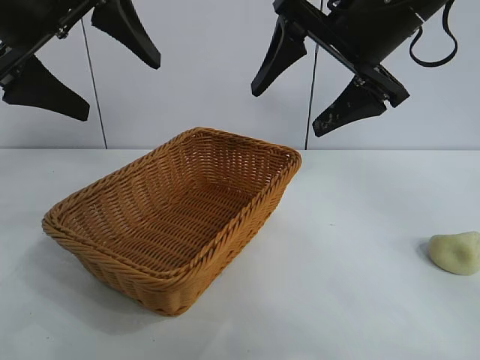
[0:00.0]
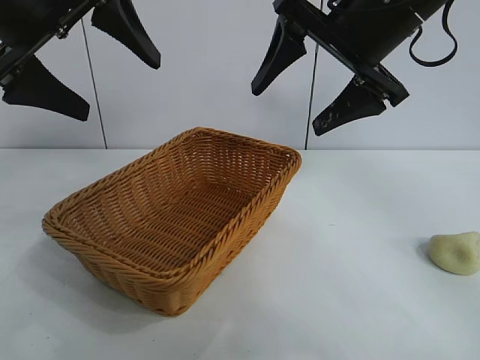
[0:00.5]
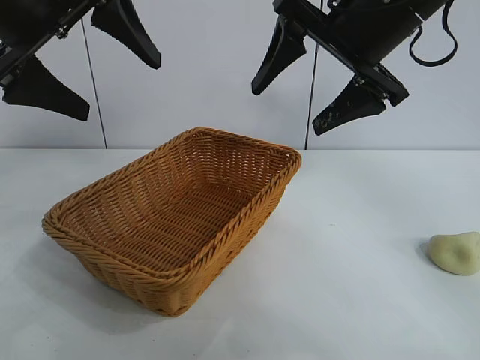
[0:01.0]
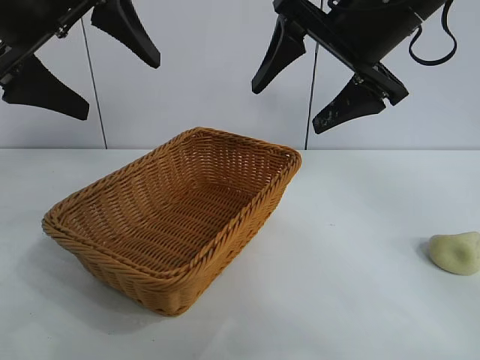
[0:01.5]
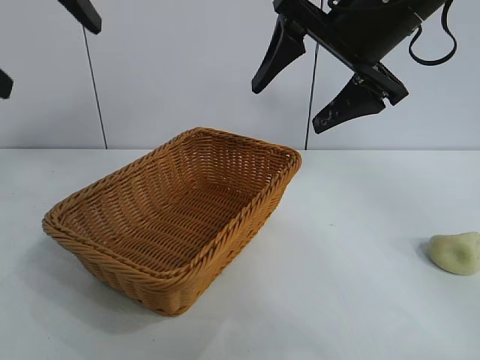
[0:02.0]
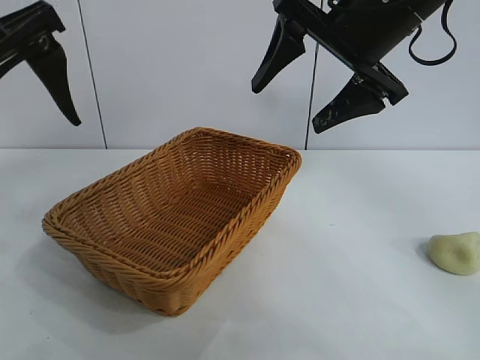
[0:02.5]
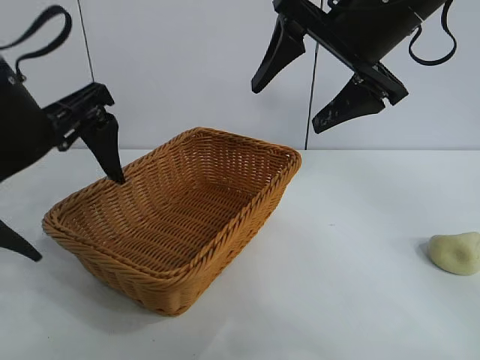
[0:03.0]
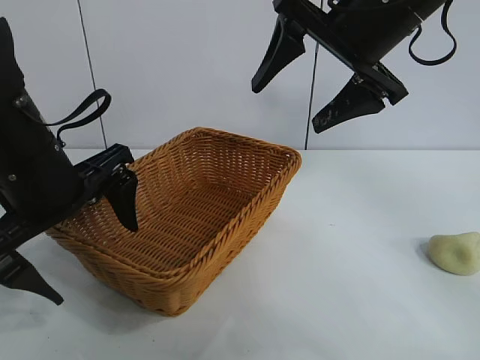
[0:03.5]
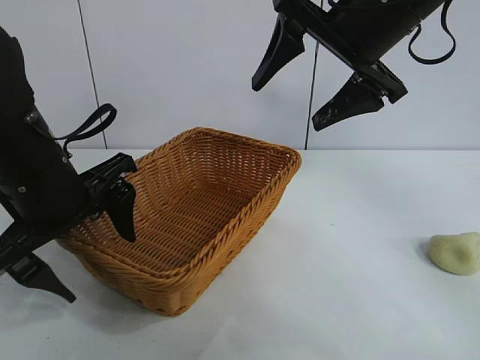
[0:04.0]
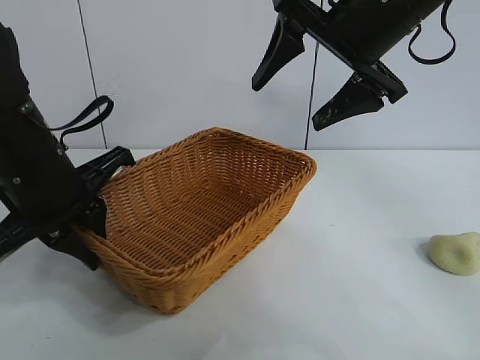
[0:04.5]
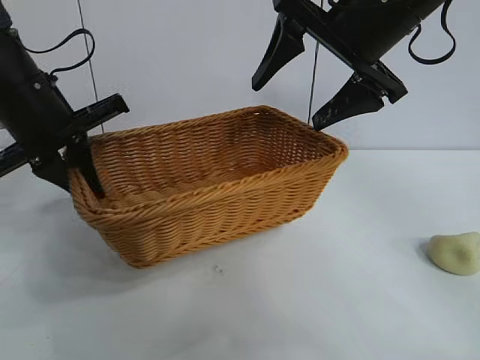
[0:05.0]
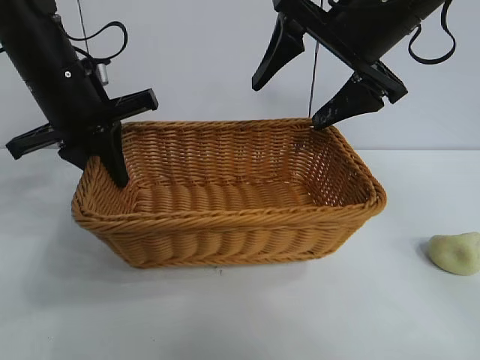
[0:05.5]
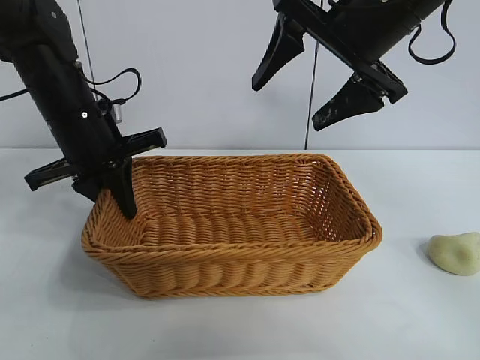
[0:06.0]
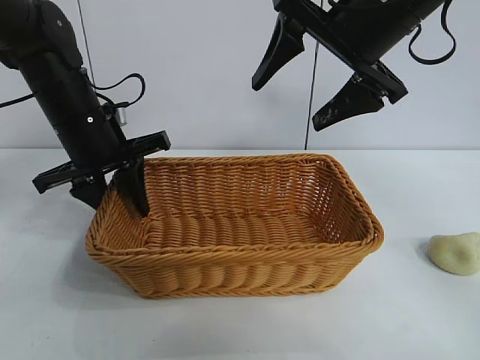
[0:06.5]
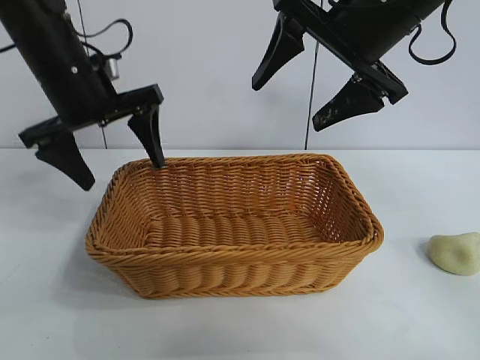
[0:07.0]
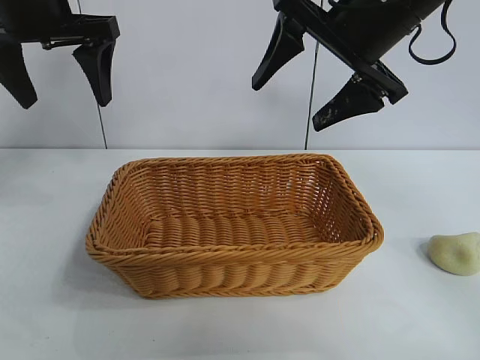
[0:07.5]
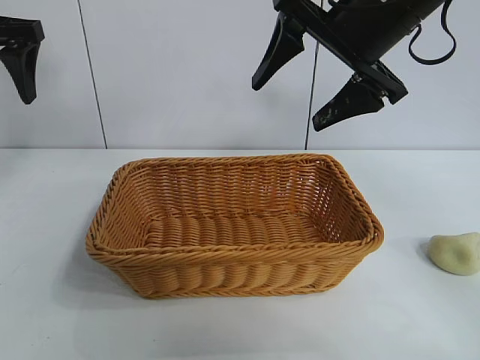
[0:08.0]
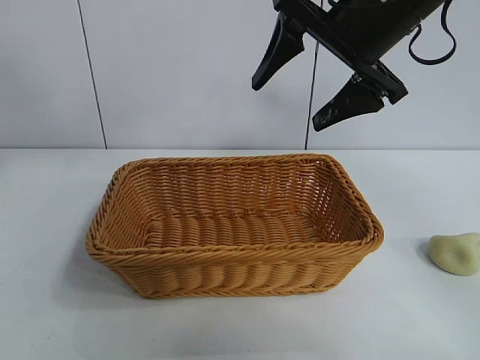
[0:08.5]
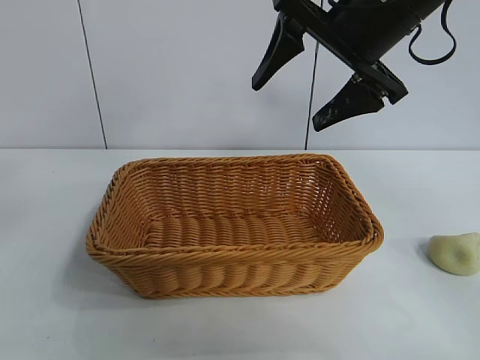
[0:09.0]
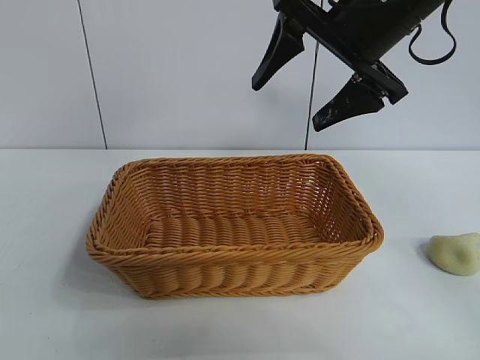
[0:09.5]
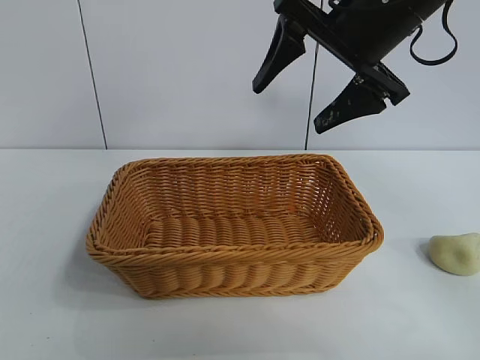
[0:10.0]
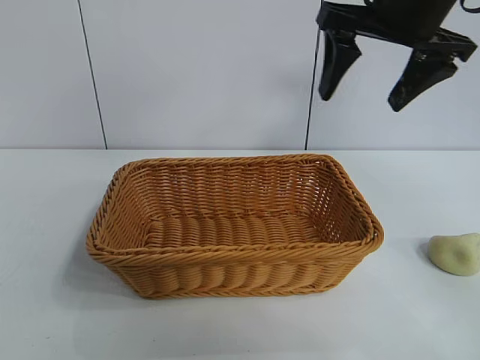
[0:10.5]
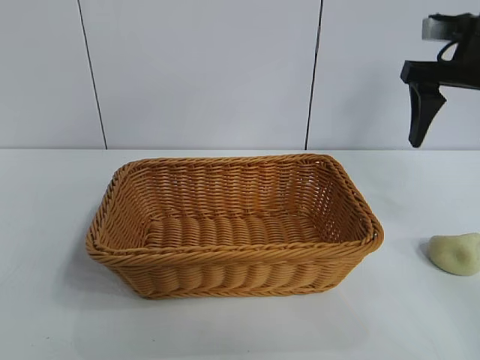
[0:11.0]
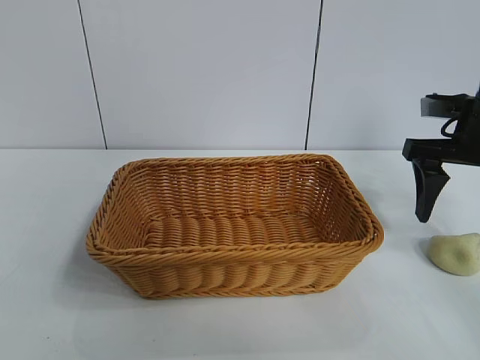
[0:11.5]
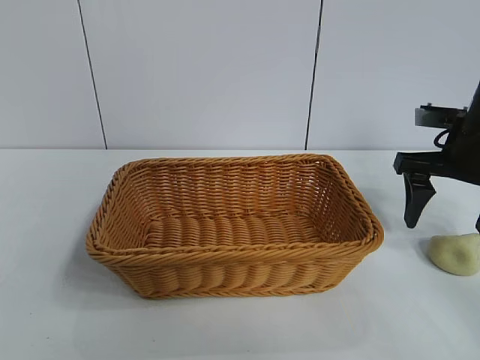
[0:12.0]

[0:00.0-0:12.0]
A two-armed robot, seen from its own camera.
Task of the whole recording: pick up the egg yolk pastry and put it into the basket.
Step, 0:02.0 to 0:04.0: Grasp the basket with left gripper.
Step, 0:04.5 to 0:06.5: Place the basket in the center of view with left gripper.

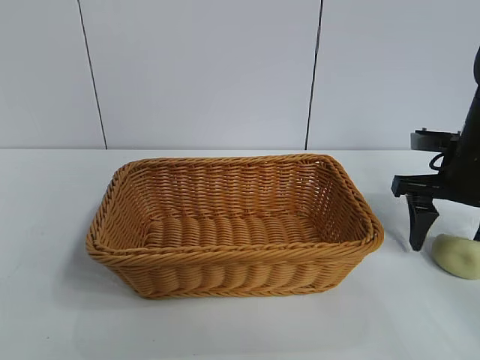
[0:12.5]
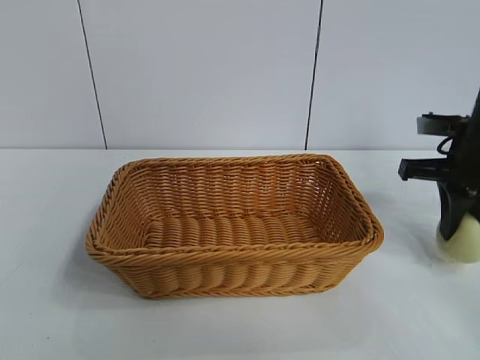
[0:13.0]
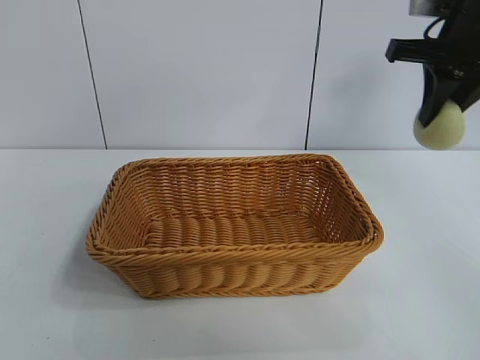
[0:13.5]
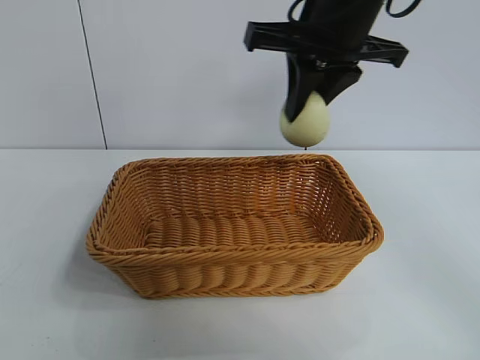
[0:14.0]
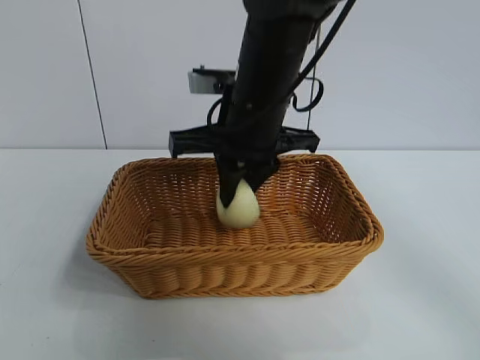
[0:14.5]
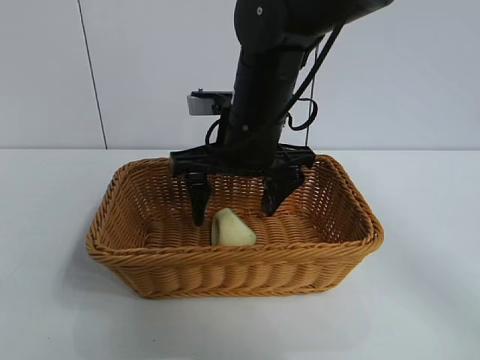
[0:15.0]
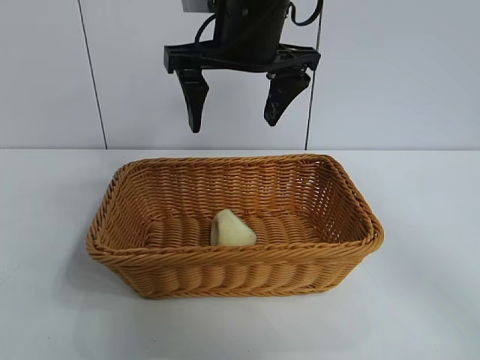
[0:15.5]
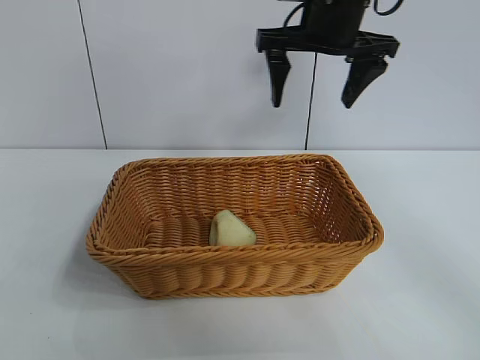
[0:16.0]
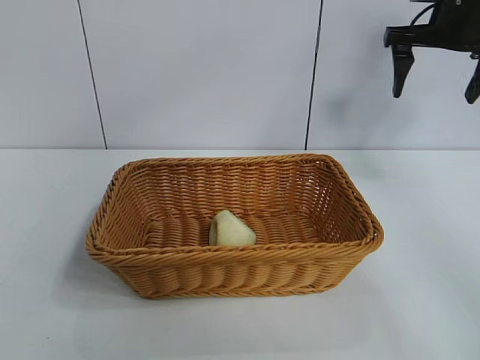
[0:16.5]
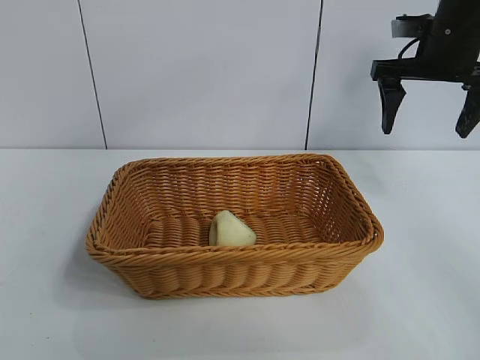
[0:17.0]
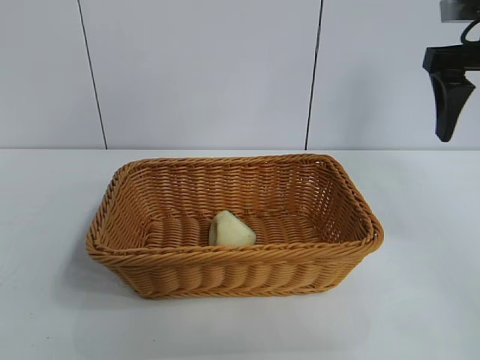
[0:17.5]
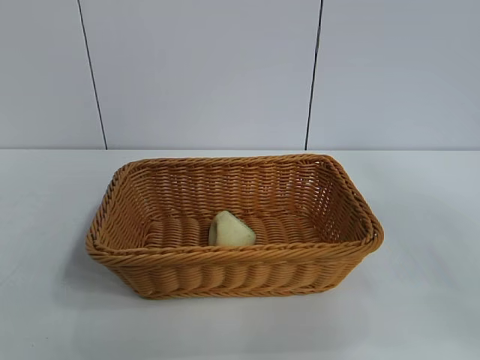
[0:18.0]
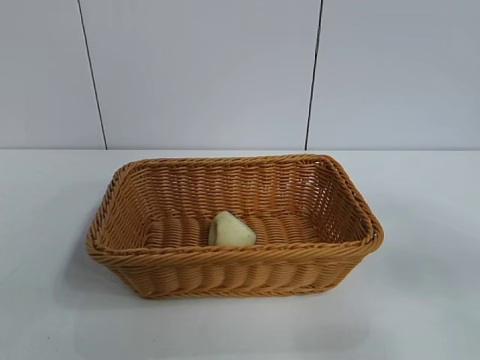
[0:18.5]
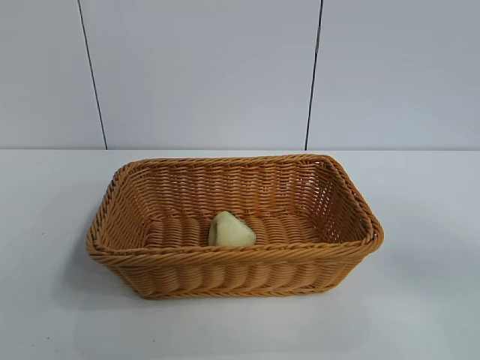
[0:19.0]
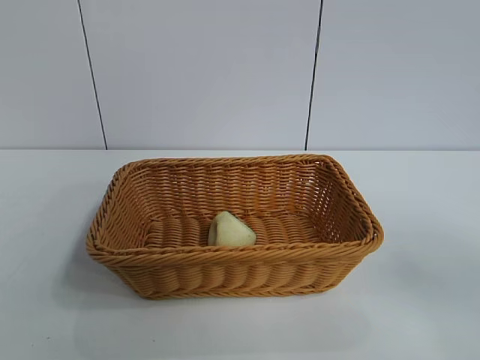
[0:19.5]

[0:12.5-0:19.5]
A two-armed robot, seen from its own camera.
Task of the whole recording: pick up the egg yolk pastry and put it into the basket.
Step, 0:13.0 to 0:15.0: Place the egg yolk pastry in the basket with right gripper.

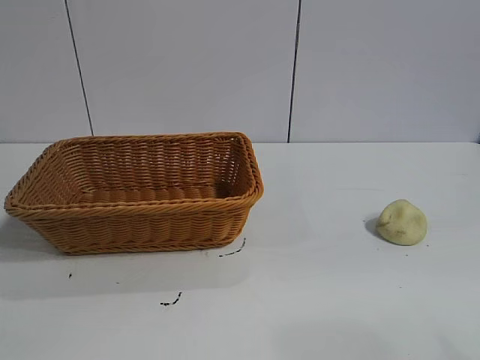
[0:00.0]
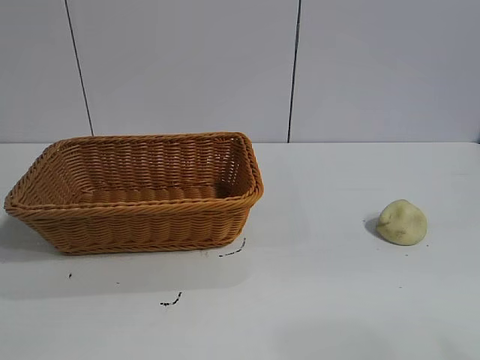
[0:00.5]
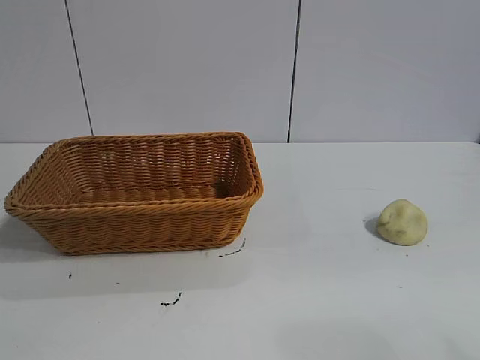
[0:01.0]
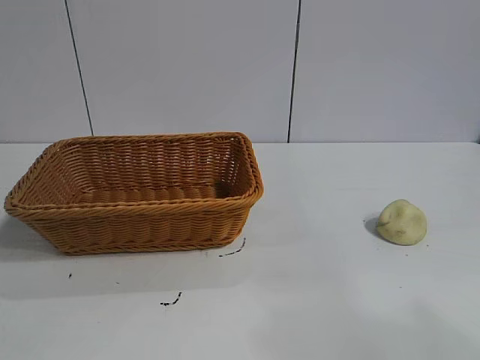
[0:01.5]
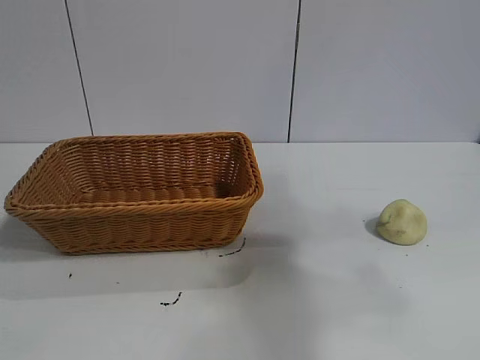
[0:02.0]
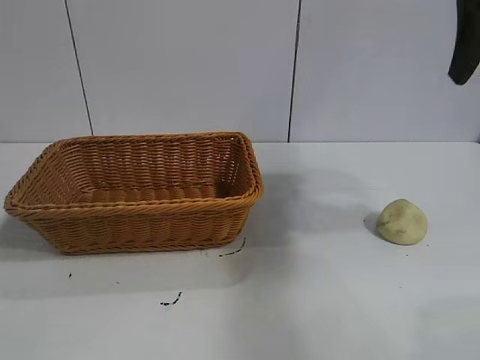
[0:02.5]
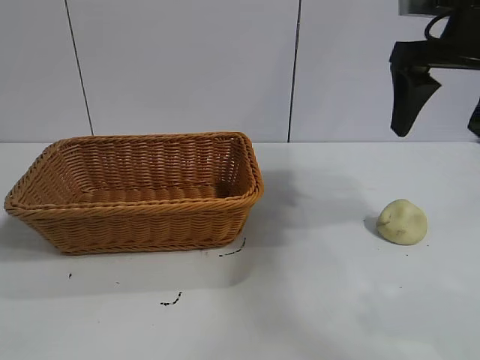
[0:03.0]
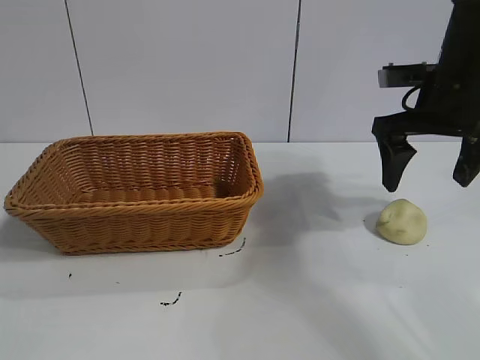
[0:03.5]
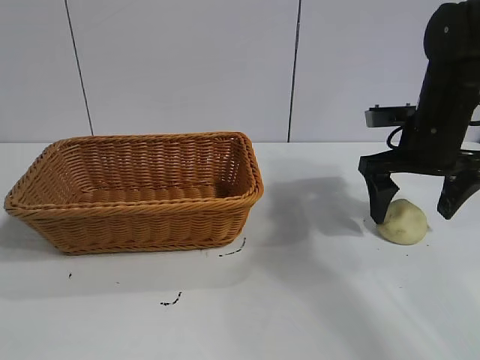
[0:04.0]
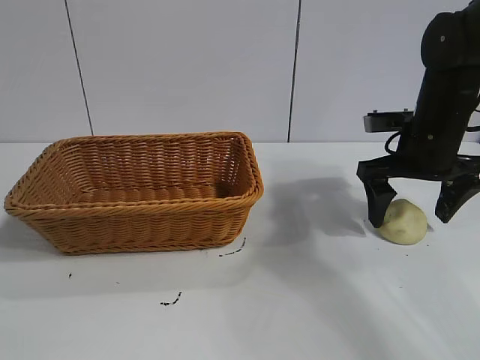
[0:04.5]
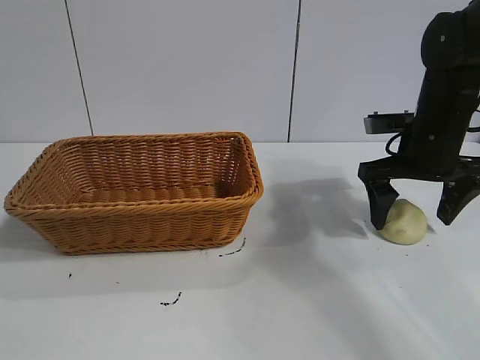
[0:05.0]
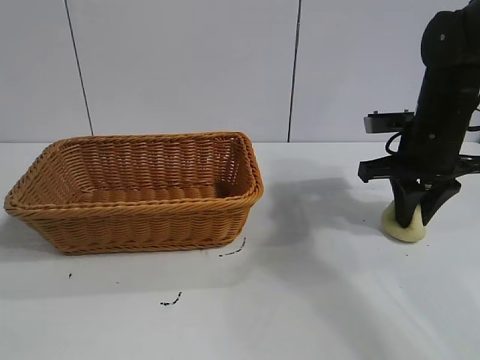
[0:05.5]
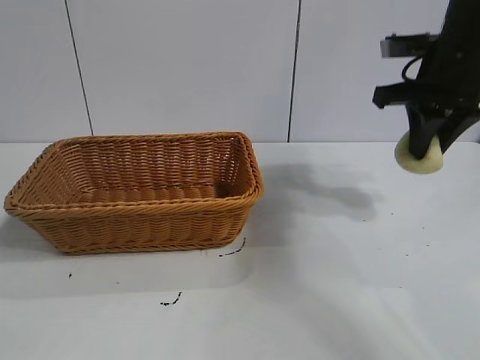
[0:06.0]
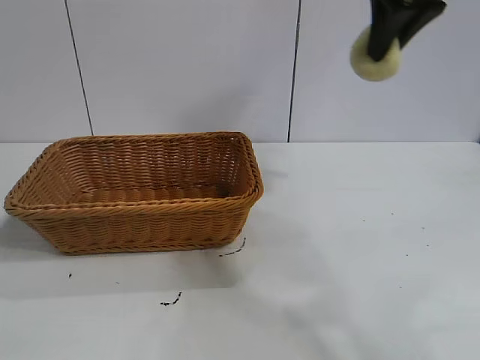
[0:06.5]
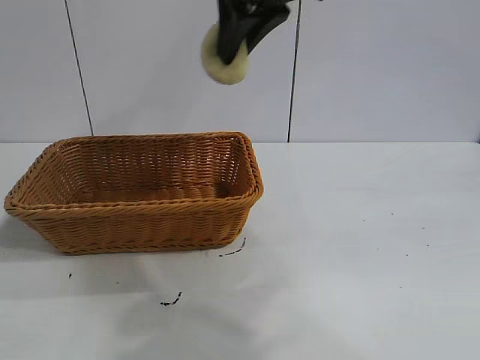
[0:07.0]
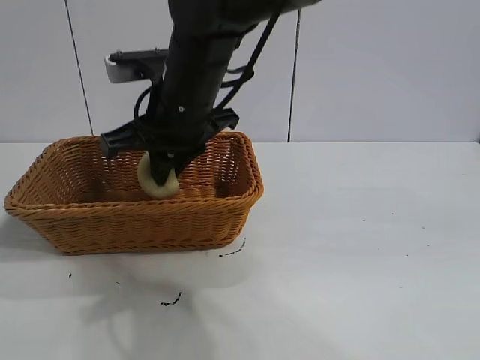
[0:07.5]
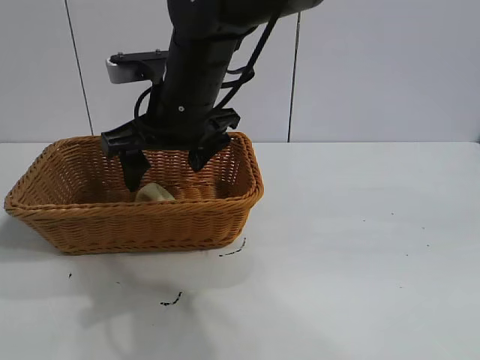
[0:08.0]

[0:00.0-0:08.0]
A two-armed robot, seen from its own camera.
Task of the whole recording: pick up the egg yolk pastry and put it into the basket.
Step, 0:01.0 to 0:05.5: Grasp egg yolk pastry with right gripper.
Step, 0:06.0 to 0:08.0: Place the egg yolk pastry in the basket with right gripper.
